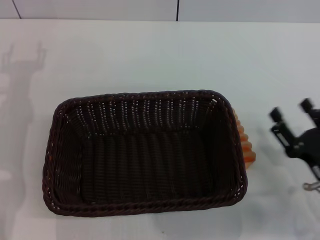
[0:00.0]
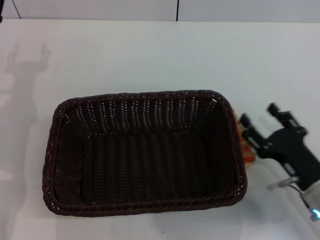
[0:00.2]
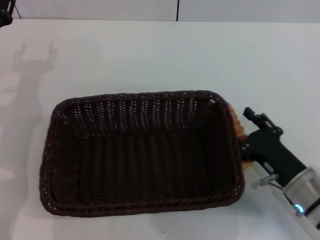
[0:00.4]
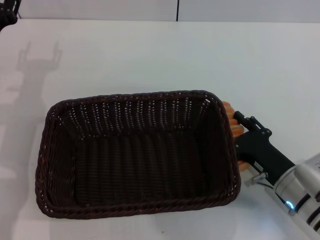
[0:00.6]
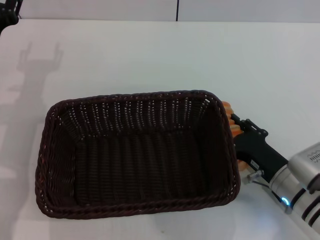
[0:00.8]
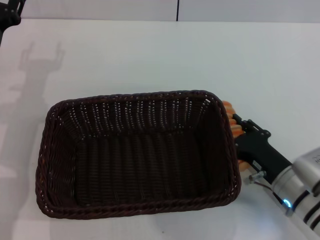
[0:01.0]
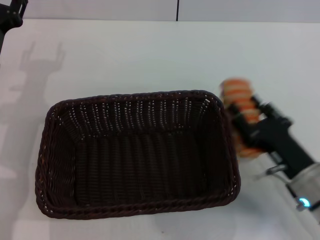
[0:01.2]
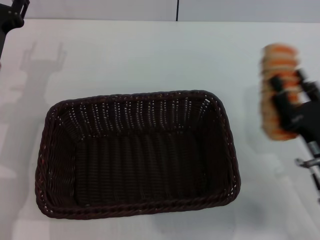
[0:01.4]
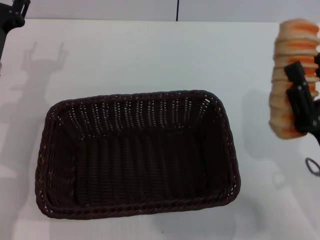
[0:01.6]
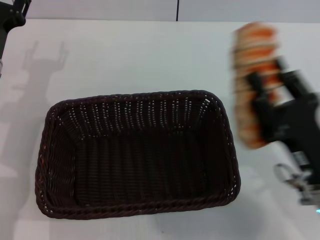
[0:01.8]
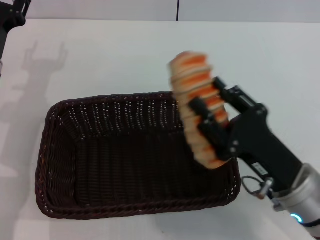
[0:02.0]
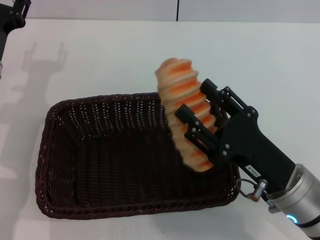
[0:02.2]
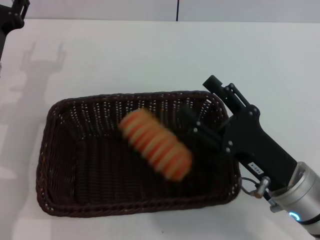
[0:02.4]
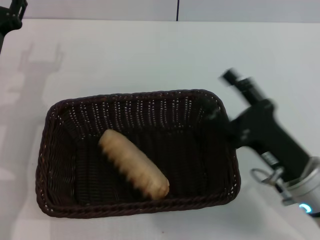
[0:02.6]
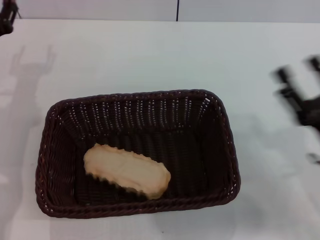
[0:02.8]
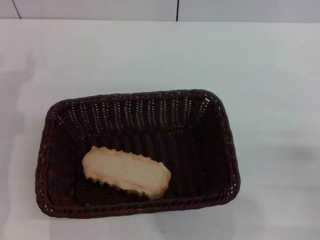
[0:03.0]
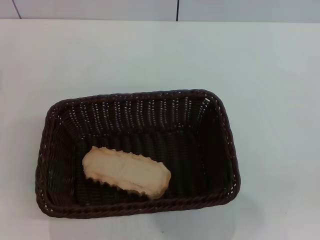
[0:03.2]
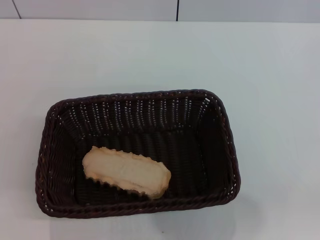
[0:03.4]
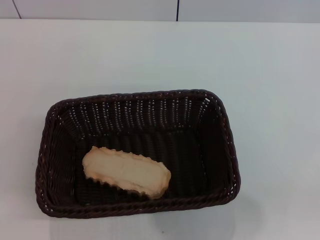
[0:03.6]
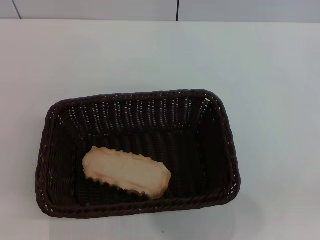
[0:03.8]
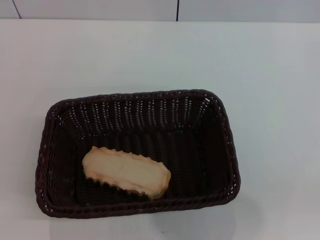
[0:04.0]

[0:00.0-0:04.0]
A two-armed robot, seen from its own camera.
Step, 0:01.4 to 0:02.4: Place the long bread into the dark basket with the right gripper.
0:00.0 to 0:01.4: The right gripper closes.
0:01.4 to 0:02.6: The right gripper opens its fingers.
0:02.6 to 0:04.0: The right gripper moves to the right and backward, approximately 20 cm. The left gripper goes roughly 15 cm backward, to the left and downward.
